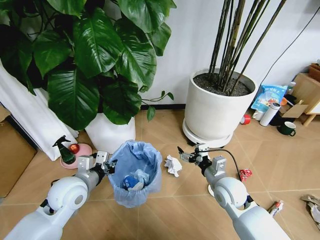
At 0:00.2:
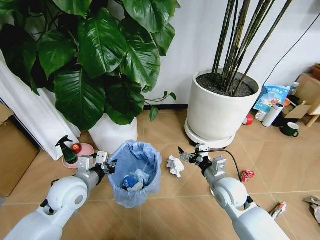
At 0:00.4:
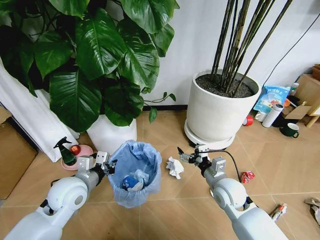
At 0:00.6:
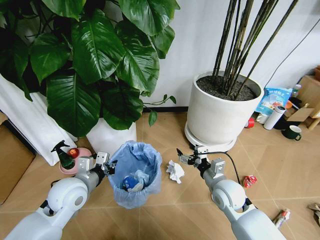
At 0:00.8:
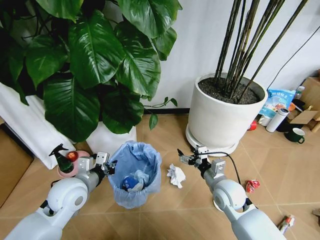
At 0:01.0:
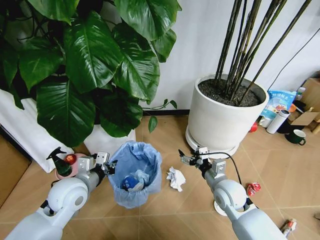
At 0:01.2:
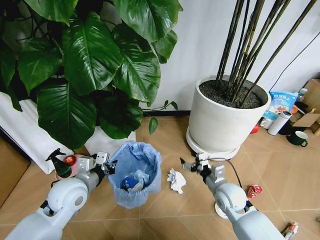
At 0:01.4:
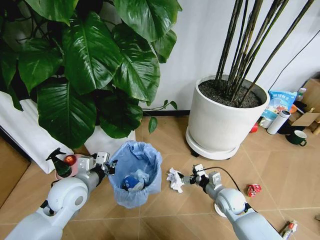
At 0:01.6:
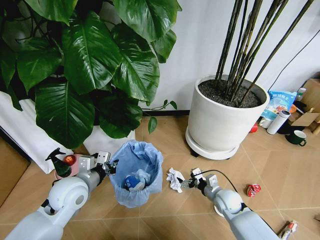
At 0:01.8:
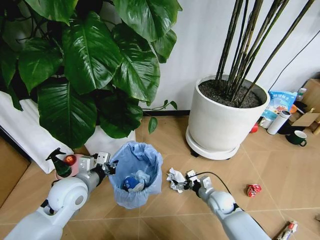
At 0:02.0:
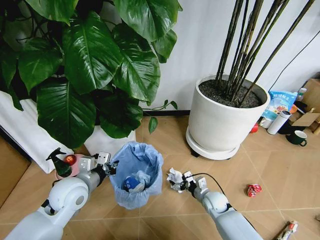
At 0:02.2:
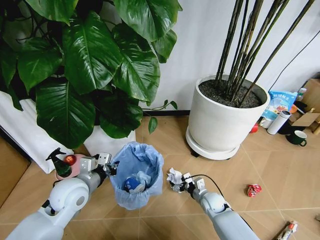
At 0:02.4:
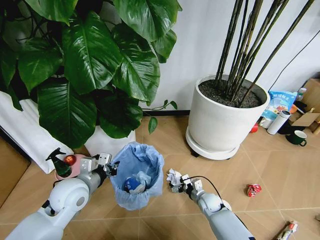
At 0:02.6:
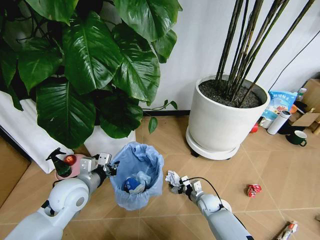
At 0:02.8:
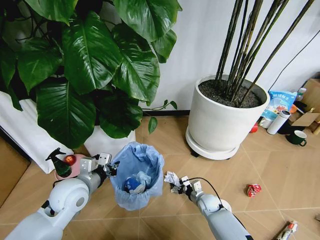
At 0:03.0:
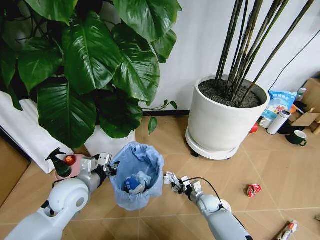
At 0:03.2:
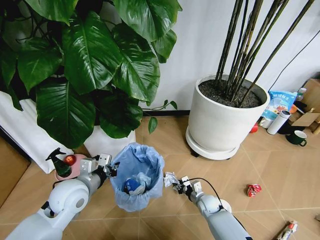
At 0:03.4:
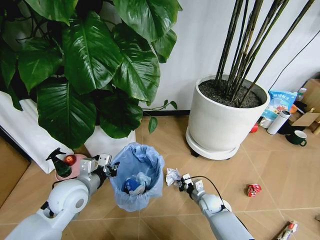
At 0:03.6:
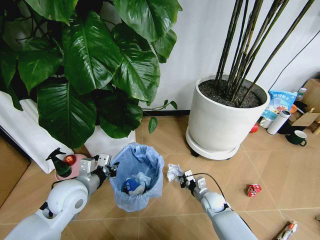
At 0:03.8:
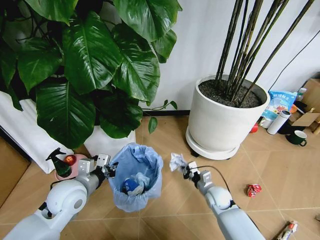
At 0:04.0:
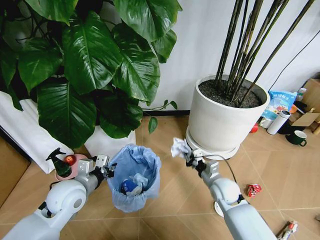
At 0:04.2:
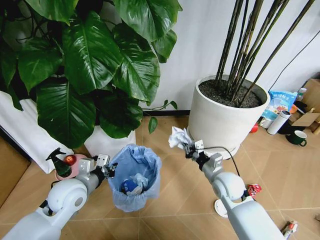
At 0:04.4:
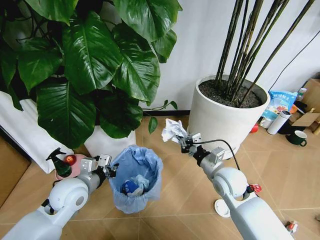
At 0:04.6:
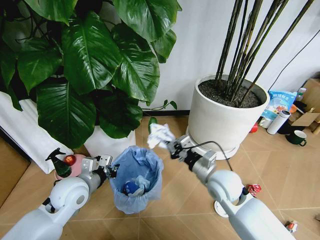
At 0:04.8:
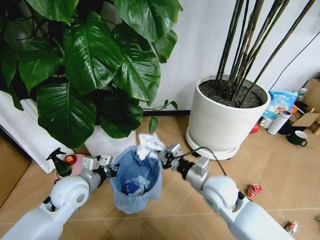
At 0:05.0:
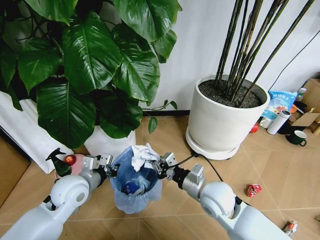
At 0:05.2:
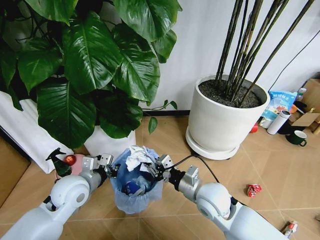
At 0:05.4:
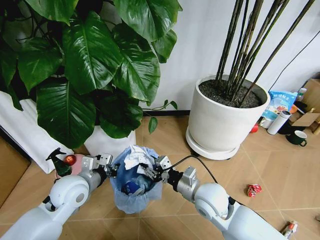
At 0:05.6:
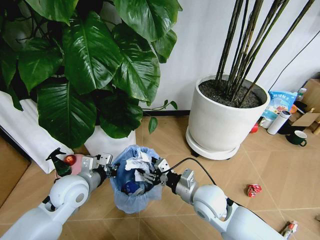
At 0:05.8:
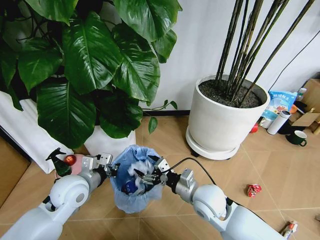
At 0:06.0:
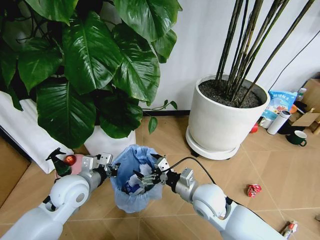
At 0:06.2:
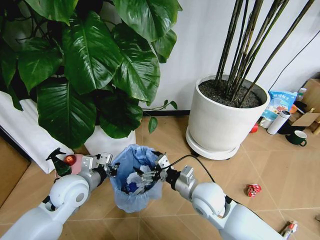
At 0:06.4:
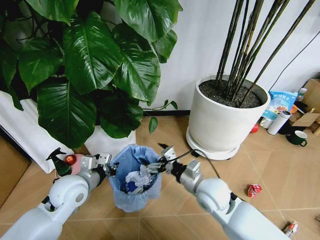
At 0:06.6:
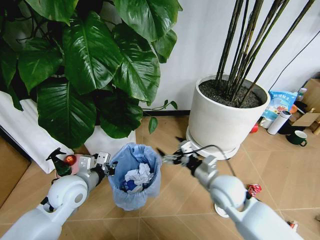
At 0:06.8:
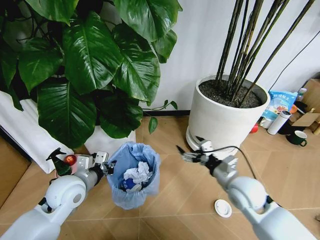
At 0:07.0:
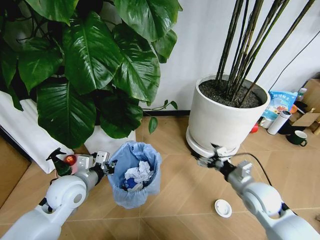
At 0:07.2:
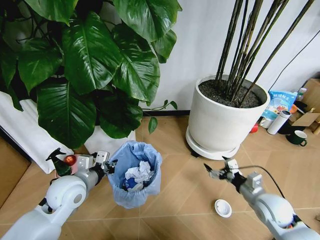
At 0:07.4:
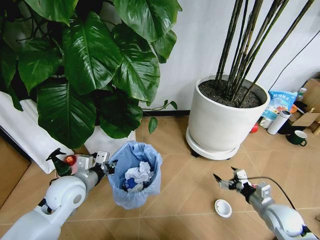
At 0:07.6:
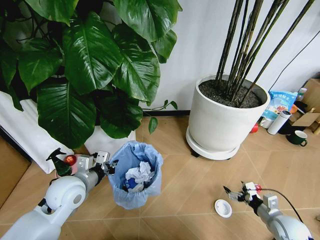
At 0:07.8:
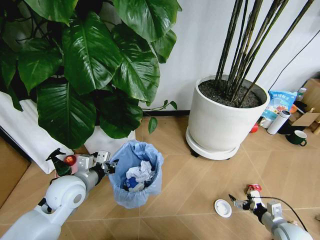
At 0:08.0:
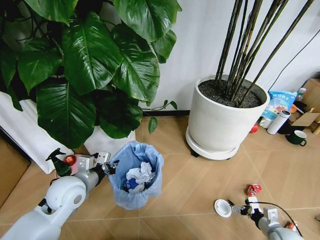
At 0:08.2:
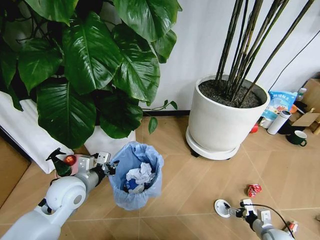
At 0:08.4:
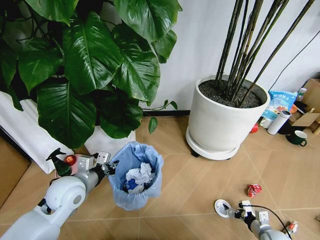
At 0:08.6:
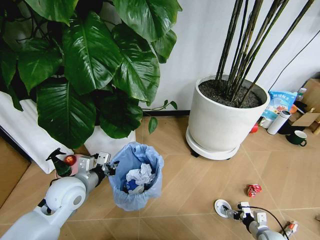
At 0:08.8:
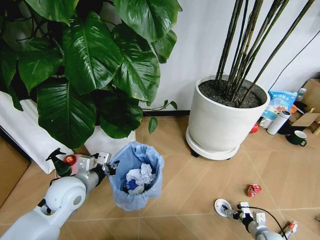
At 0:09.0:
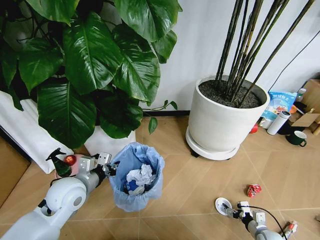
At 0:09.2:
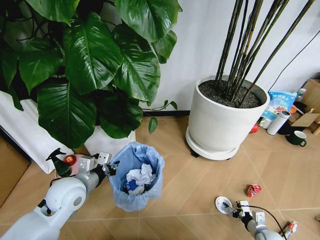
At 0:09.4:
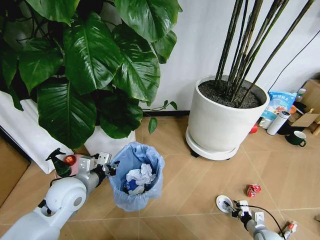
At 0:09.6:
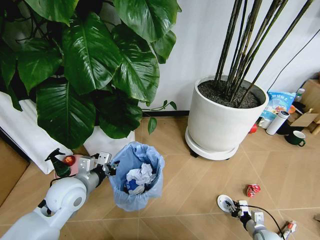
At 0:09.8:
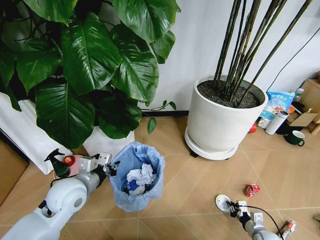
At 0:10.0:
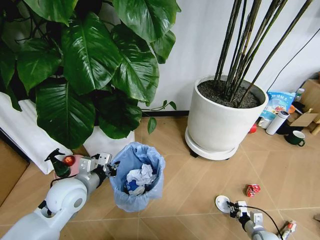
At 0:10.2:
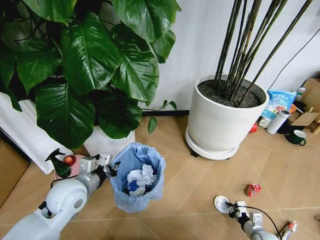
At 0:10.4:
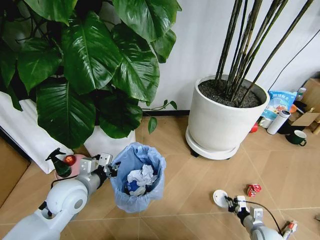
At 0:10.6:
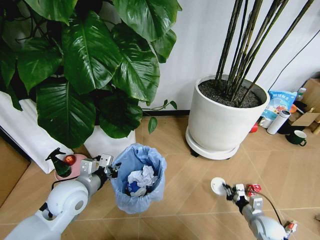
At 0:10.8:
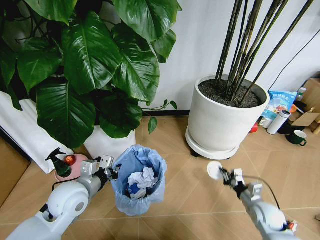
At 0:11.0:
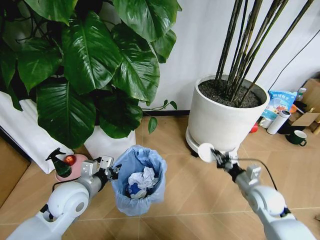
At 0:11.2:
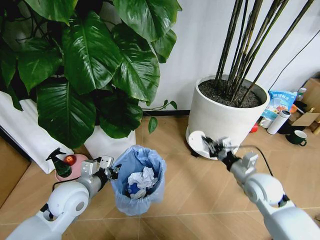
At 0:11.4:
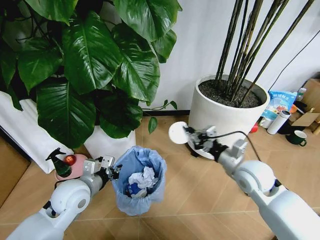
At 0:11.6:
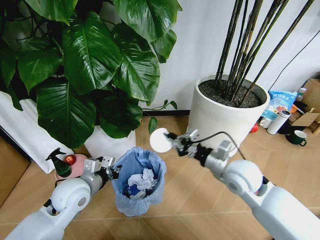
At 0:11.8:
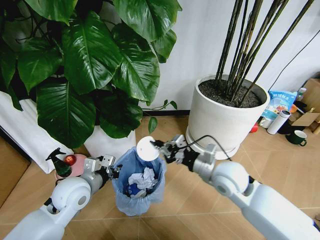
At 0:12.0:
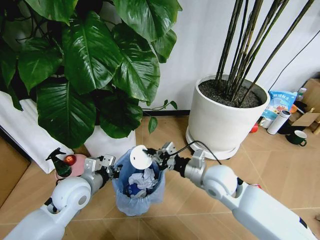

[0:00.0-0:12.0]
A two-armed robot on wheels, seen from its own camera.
Task of the whole recording: Pick up the trash bin and place the garbage on the floor into it.
0:00.0 to 0:01.6: The right gripper is displaced downward by some 15 cm.
0:01.6 to 0:03.0: The right gripper travels downward by some 10 cm, and closes.
0:03.0 to 0:04.4: The right gripper heads upward, covering roughly 25 cm, and closes its fingers.
0:04.4 to 0:06.0: The right gripper is displaced to the left and backward by some 10 cm, and opens.
0:06.0 to 0:07.6: The right gripper heads to the right and downward, covering about 30 cm.
0:07.6 to 0:09.0: The right gripper heads downward, covering approximately 10 cm.
0:09.0 to 0:10.4: The right gripper closes.
0:10.4 to 0:12.0: The right gripper travels upward, to the left and forward by some 40 cm.

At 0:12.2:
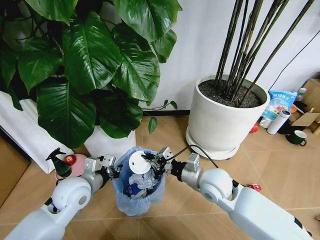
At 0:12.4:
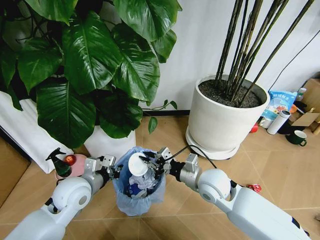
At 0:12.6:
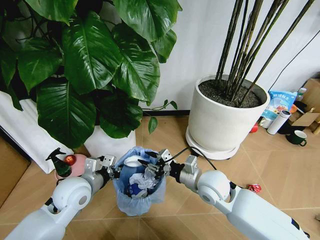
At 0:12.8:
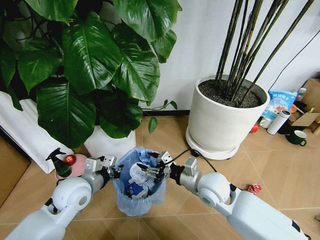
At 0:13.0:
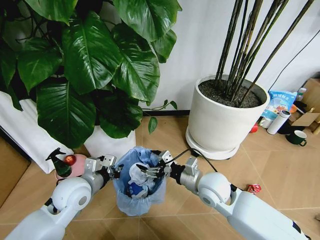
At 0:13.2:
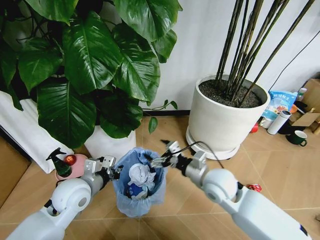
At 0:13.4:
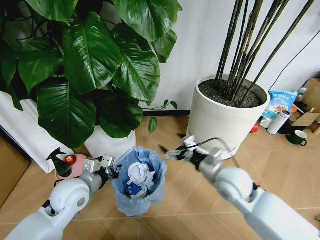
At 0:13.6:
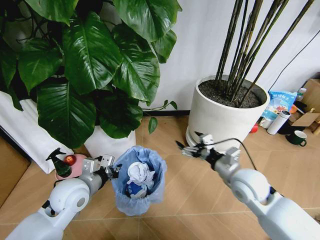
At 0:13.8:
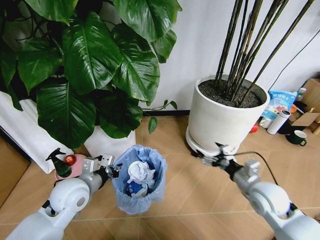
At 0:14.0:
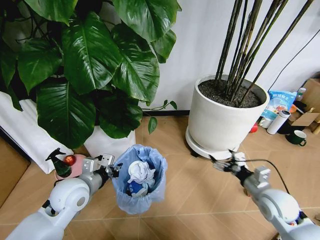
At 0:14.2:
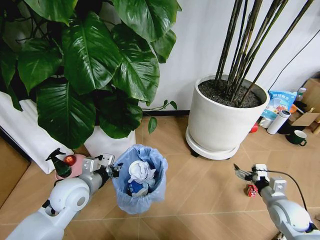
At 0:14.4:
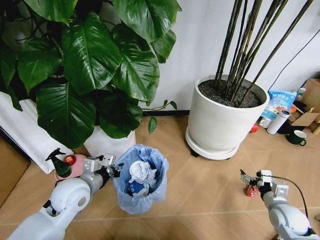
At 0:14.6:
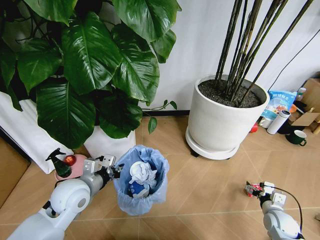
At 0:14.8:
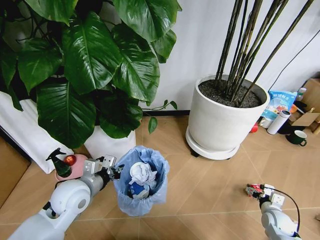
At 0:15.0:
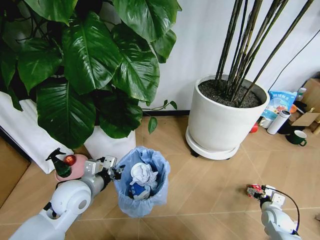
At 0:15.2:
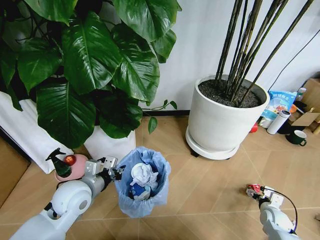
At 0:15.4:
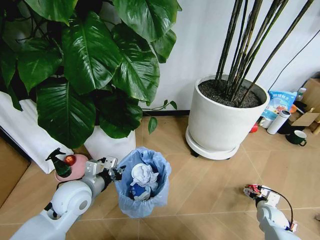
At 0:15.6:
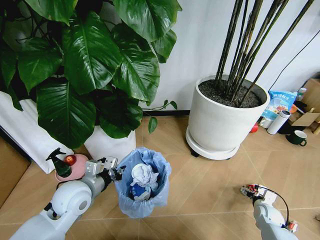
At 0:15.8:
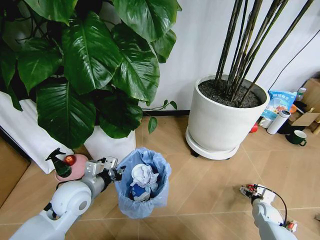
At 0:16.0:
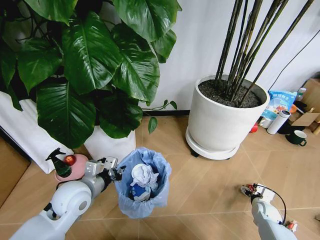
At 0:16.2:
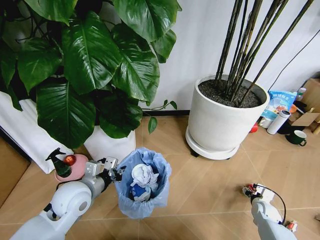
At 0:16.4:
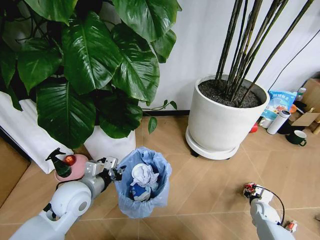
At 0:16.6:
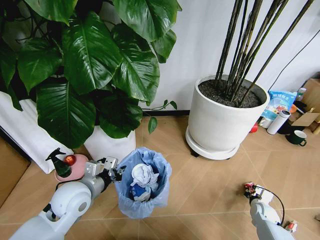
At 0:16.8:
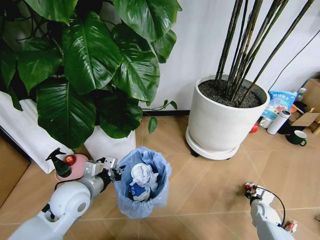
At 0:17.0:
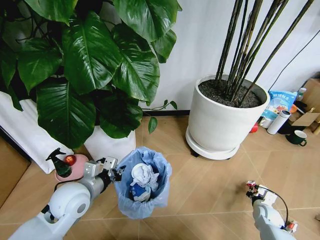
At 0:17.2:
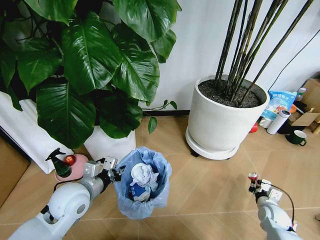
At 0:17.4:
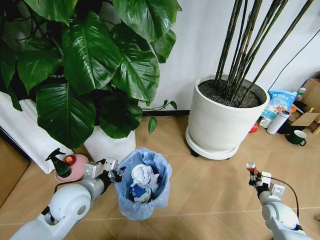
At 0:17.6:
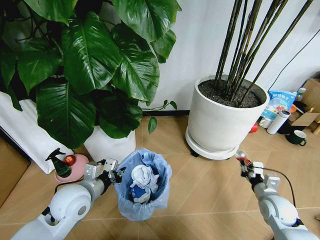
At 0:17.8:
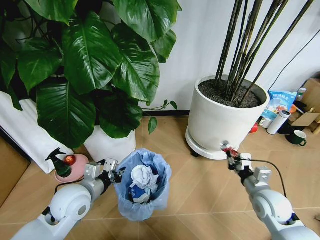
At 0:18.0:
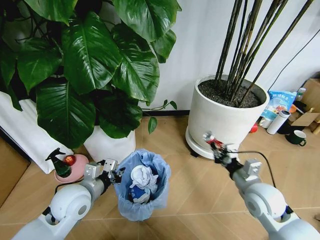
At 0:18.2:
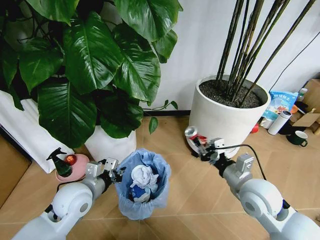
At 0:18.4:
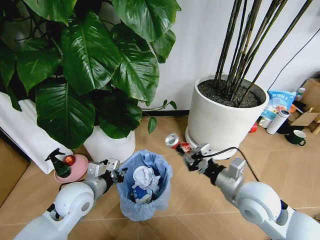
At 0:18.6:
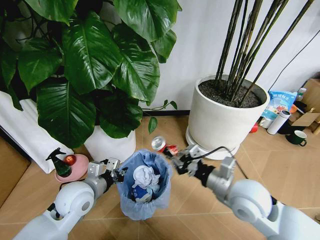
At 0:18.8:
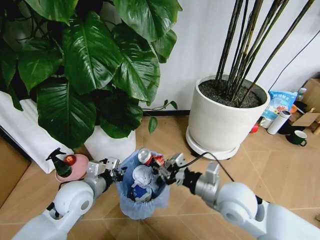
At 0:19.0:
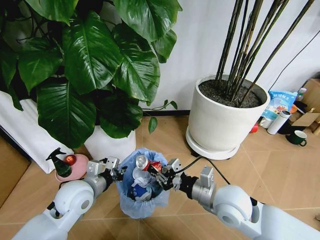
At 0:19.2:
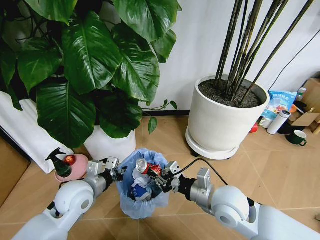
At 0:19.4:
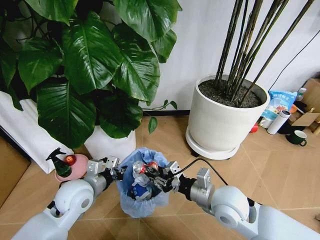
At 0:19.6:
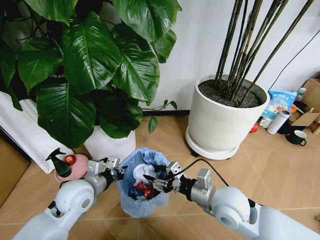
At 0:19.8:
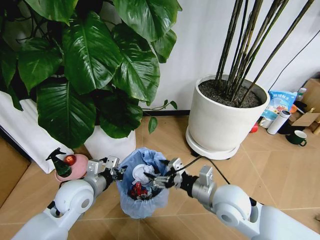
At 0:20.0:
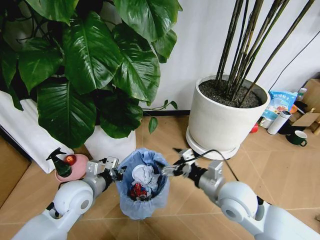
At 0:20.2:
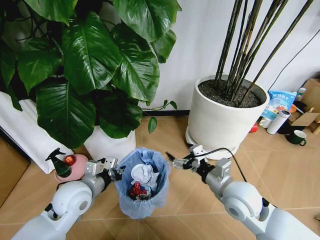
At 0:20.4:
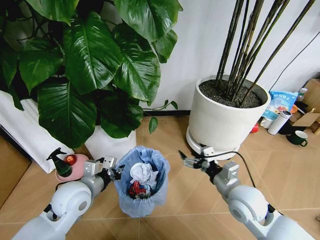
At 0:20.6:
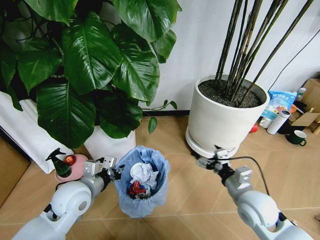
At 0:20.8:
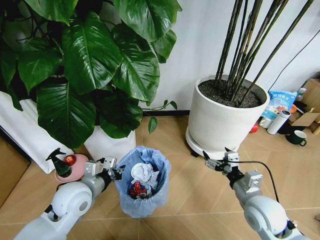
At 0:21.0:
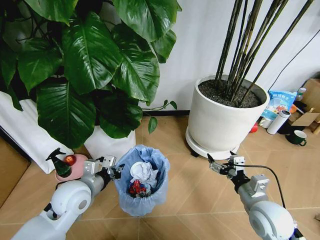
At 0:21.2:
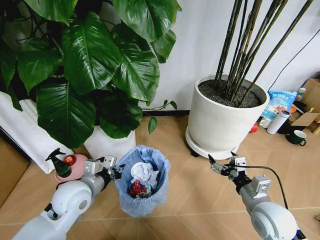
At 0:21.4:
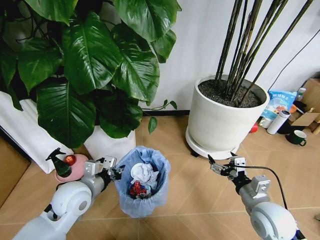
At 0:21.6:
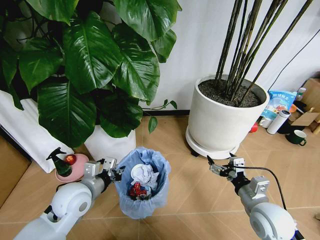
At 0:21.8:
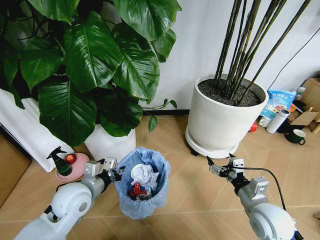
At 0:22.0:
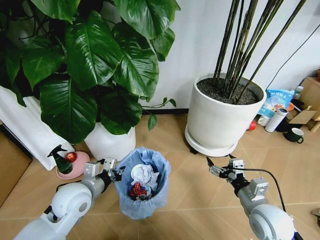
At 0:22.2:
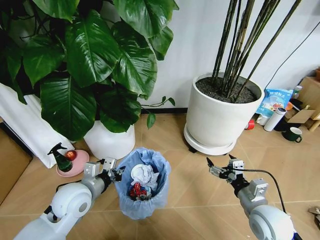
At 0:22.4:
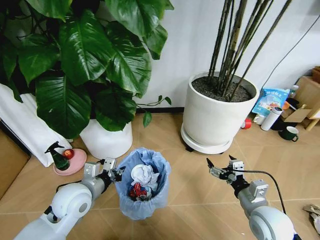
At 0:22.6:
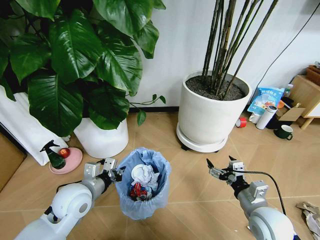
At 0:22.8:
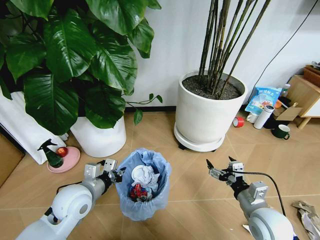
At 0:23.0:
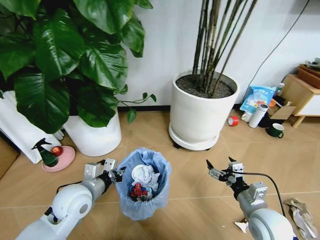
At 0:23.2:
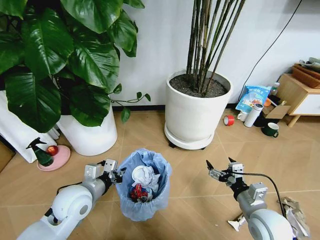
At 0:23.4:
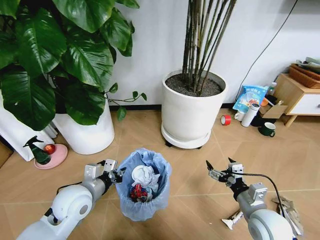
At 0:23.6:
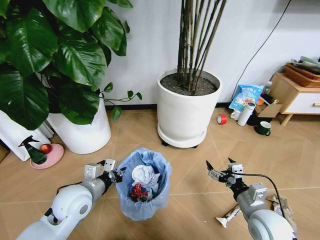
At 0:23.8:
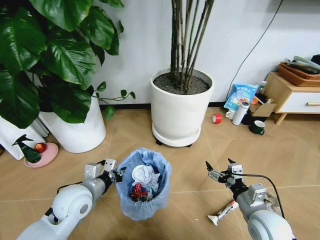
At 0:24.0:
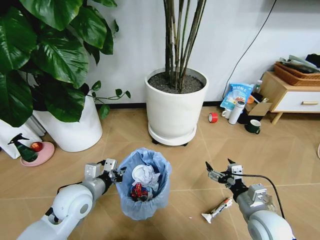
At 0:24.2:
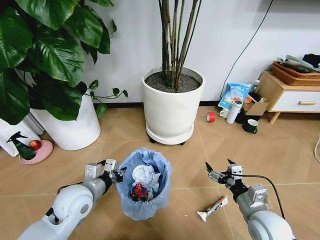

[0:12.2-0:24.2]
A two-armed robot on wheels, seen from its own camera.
Task of the whole recording: Pick up the trash bin and place the garbage on the floor into it.
0:12.2 to 0:13.8: The right gripper is displaced to the right by about 15 cm, and opens up.
0:13.8 to 0:15.2: The right gripper travels downward and to the right by about 25 cm.
0:15.2 to 0:16.6: The right gripper closes its fingers.
0:16.6 to 0:18.2: The right gripper travels upward and to the left by about 35 cm.
0:18.2 to 0:19.8: The right gripper travels to the left by approximately 10 cm, and opens its fingers.
0:19.8 to 0:21.2: The right gripper travels to the right by approximately 10 cm.
